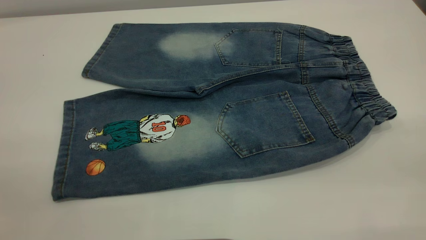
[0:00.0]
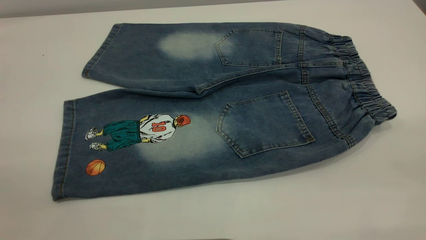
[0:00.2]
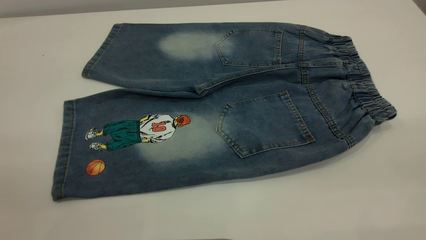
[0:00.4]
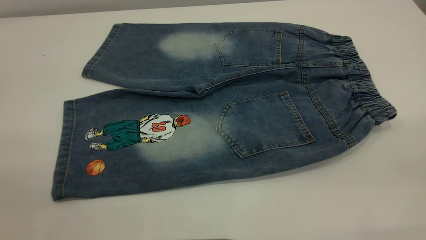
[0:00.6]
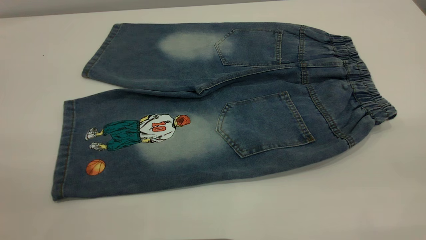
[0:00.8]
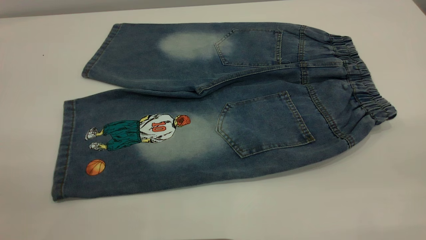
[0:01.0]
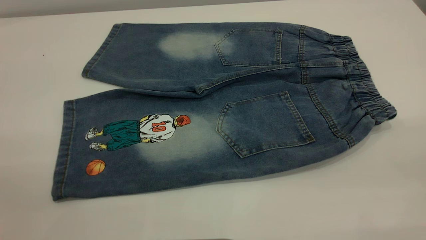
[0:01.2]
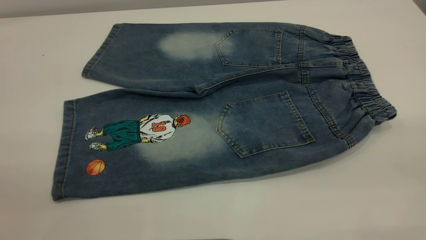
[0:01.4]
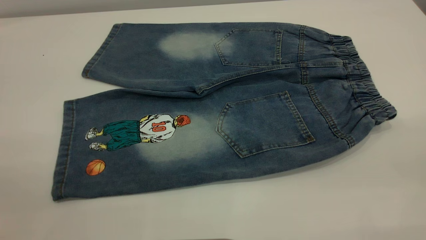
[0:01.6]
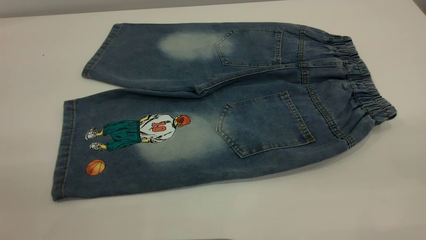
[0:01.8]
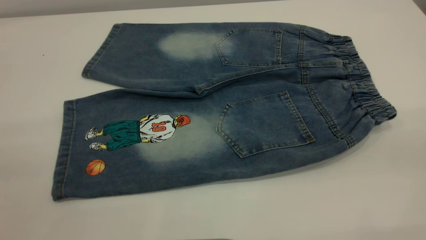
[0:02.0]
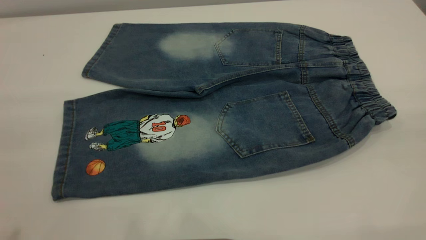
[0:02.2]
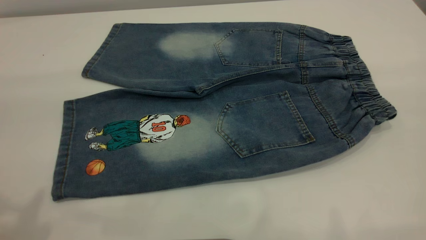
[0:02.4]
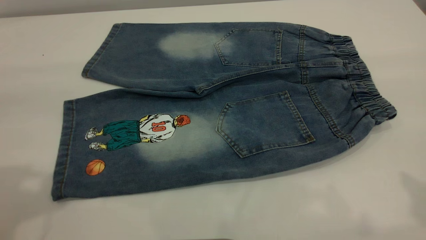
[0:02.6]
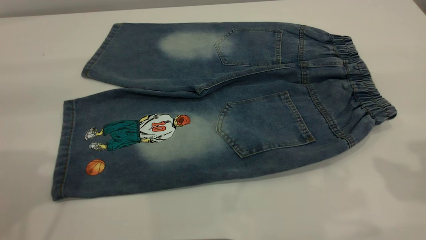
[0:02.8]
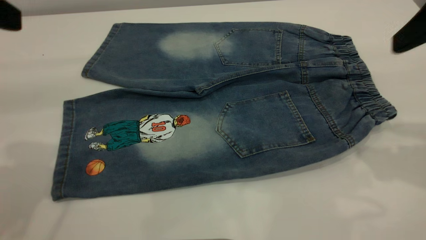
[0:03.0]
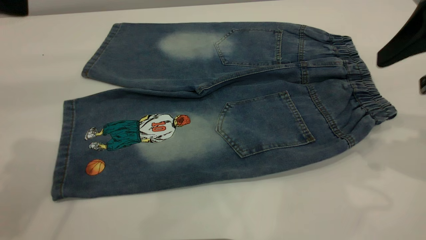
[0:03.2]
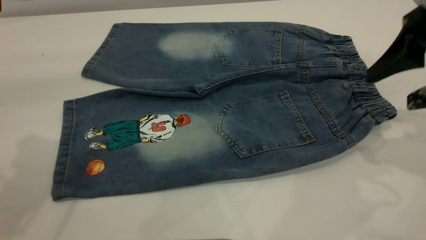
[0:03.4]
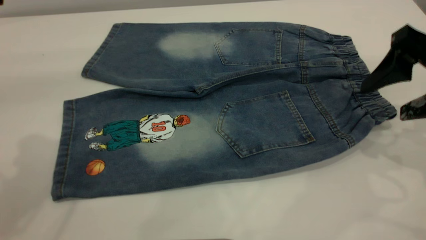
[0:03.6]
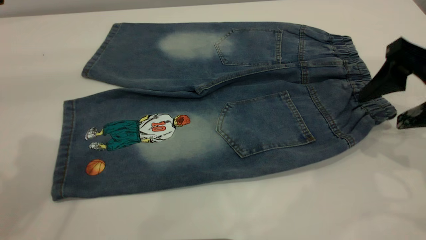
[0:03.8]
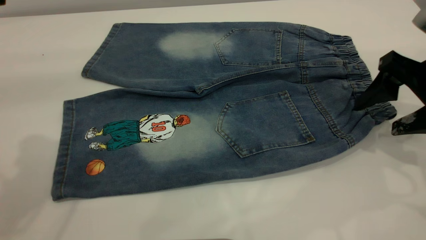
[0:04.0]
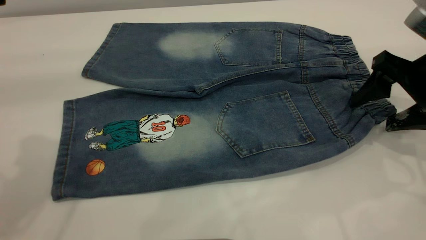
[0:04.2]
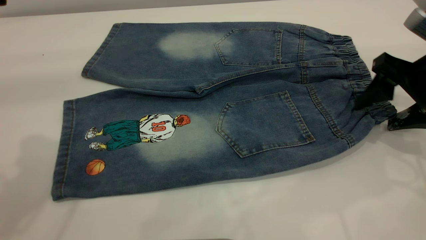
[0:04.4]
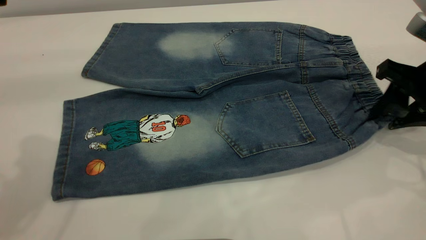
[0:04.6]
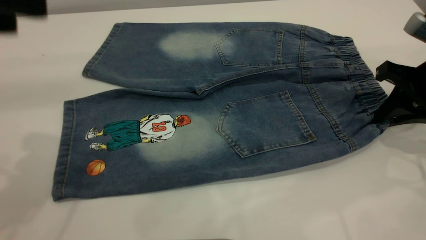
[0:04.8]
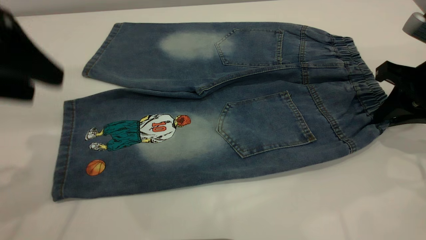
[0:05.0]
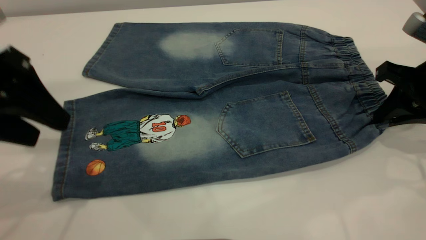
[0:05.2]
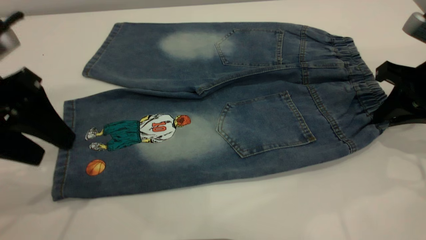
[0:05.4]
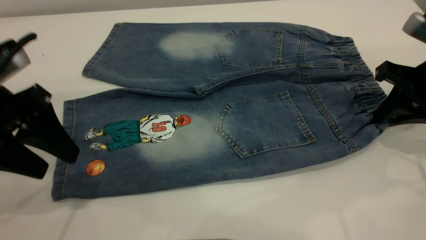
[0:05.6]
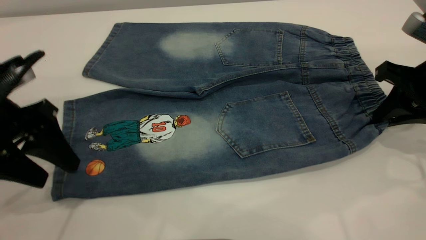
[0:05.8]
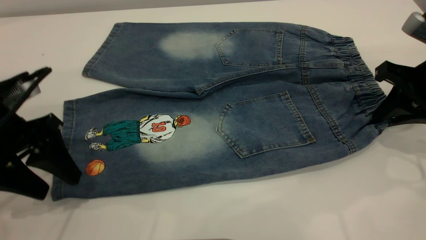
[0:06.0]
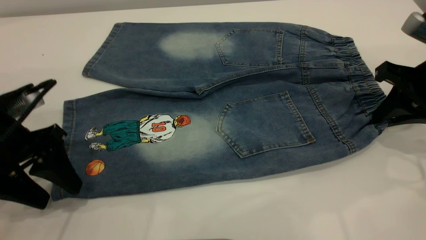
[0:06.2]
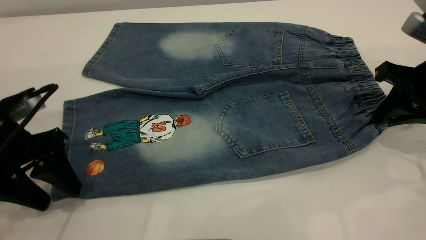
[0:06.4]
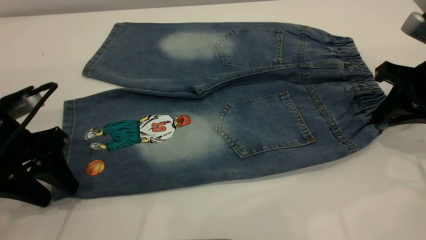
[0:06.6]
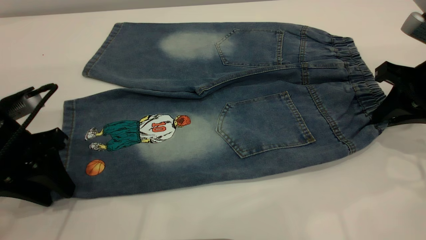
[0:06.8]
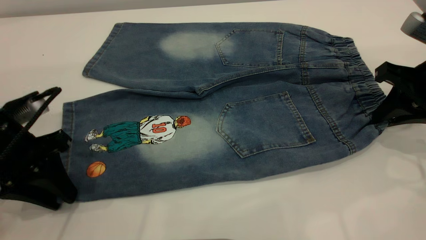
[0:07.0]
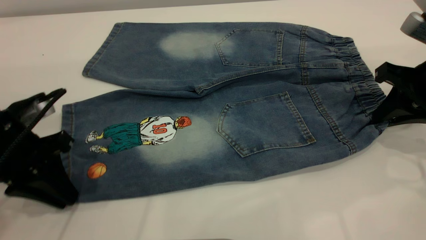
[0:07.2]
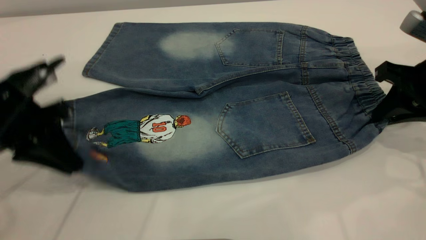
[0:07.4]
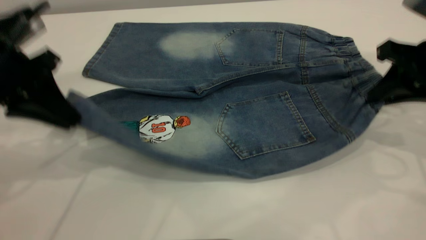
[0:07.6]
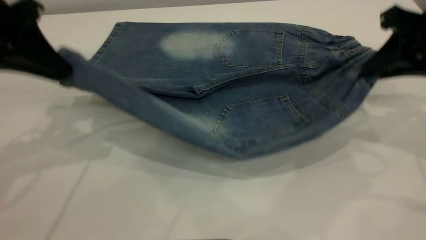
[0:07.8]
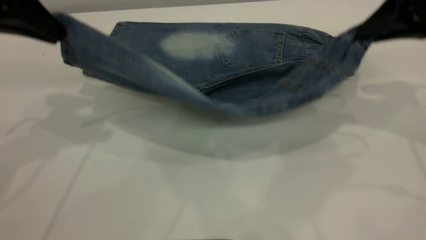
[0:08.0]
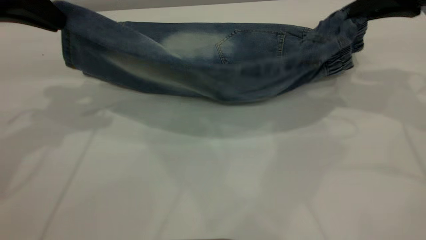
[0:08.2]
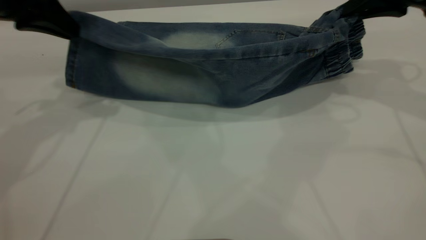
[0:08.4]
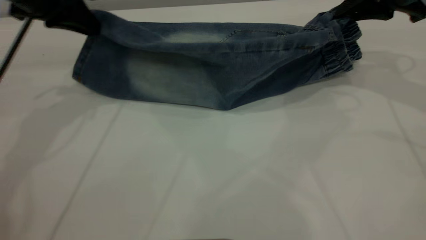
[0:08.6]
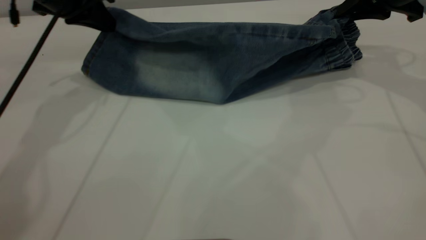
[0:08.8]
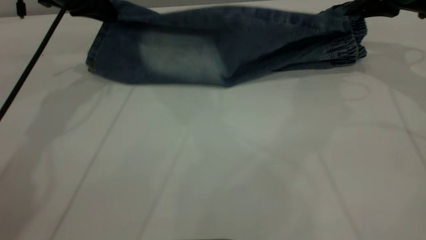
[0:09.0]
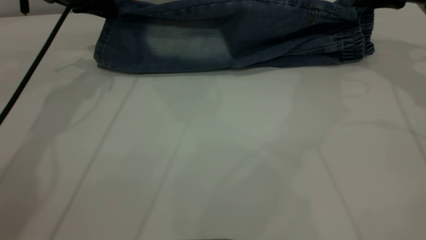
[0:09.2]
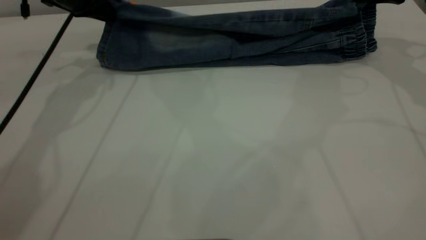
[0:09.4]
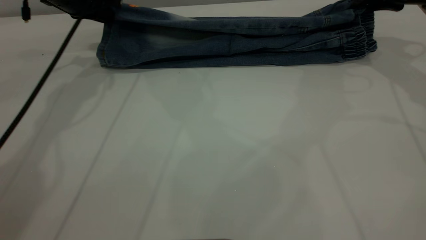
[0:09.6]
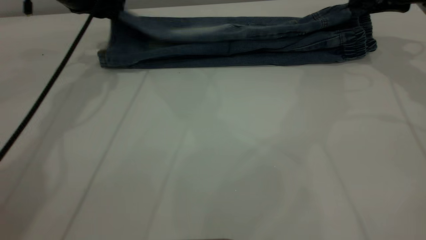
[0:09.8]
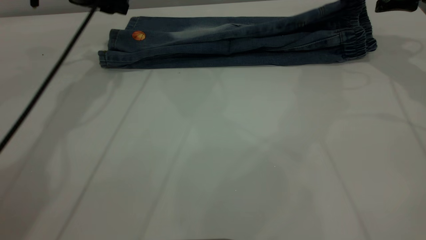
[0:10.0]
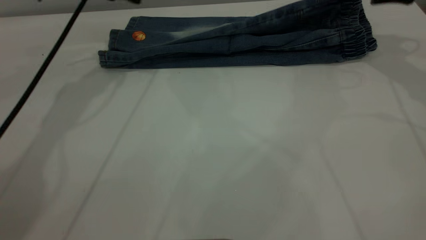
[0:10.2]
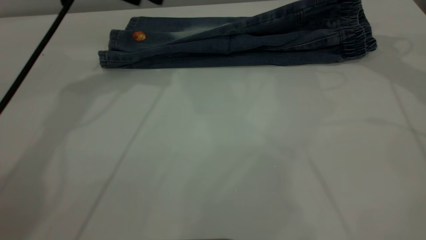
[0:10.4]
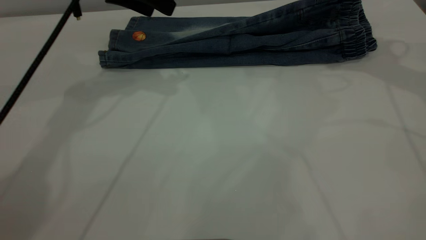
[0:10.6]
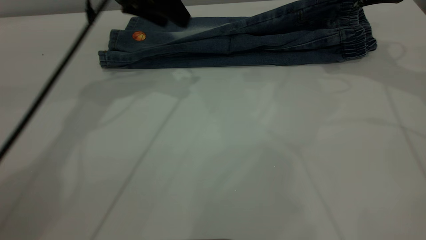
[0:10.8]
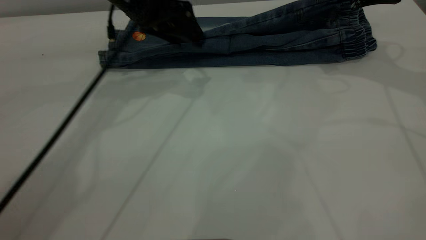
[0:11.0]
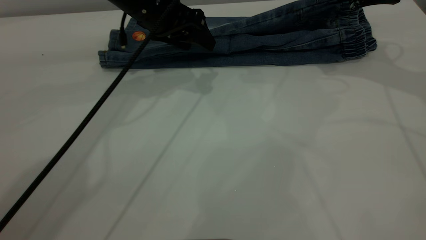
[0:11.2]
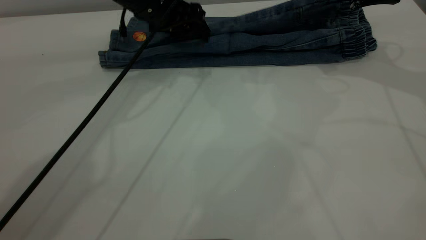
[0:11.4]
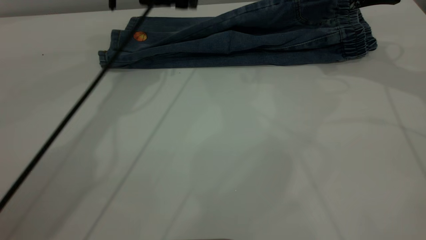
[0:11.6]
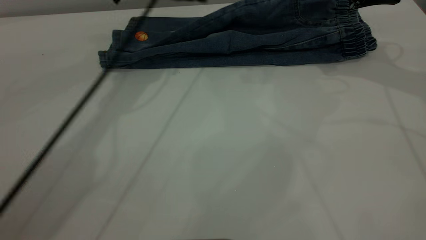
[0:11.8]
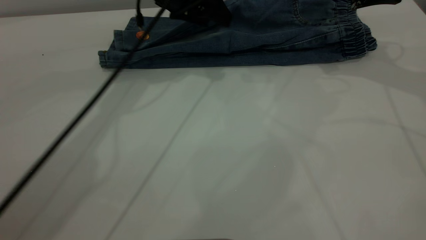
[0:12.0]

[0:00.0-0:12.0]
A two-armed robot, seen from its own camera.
Step, 0:00.0 to 0:10.2: Fold the bottom of the pants upward.
0:00.0 to 0:01.6: Both grippers stay put.
0:01.6 to 0:03.0: The right gripper is displaced forward by some 25 cm.
0:03.0 to 0:04.4: The right gripper travels downward and forward by about 15 cm.
0:04.4 to 0:06.0: The right gripper closes its fingers. The left gripper travels downward by some 15 cm.
0:06.0 to 0:07.6: The left gripper goes about 5 cm upward, and closes up.
0:07.6 to 0:09.0: The grippers both shift forward by some 15 cm.
0:09.0 to 0:10.4: The left gripper moves to the right, some 5 cm, and opens; the right gripper opens up.
0:10.4 to 0:12.0: The left gripper shifts some 10 cm to the right and downward.

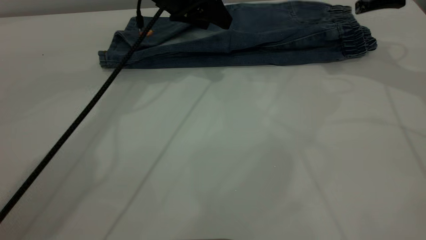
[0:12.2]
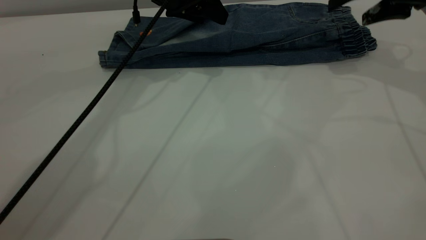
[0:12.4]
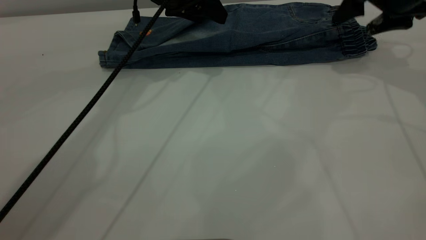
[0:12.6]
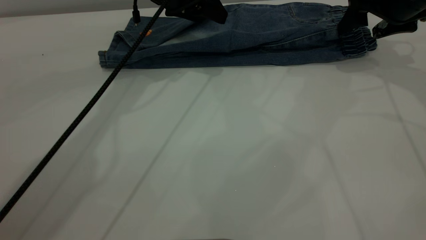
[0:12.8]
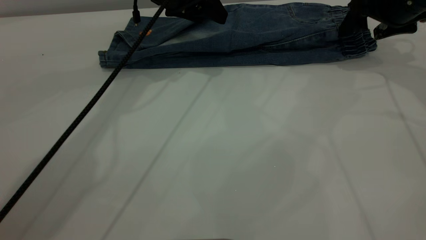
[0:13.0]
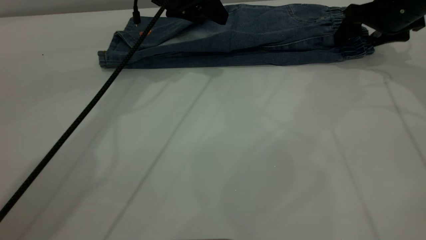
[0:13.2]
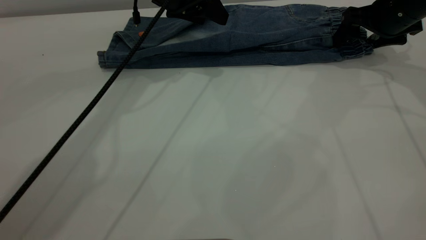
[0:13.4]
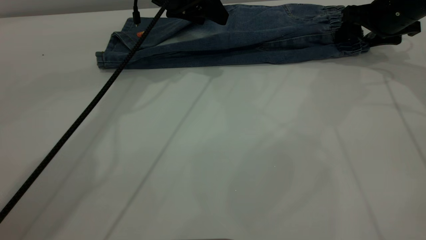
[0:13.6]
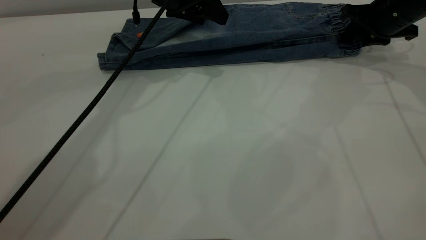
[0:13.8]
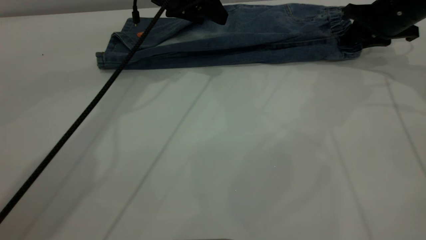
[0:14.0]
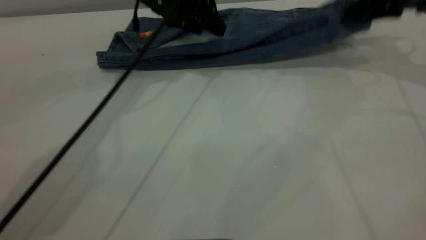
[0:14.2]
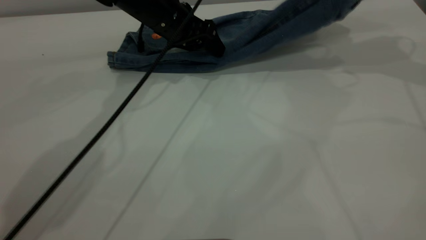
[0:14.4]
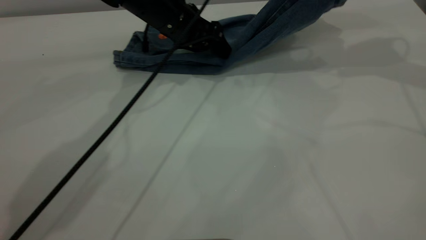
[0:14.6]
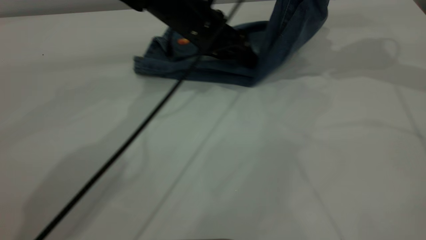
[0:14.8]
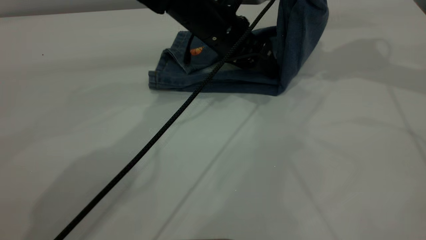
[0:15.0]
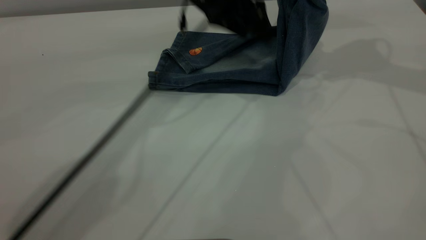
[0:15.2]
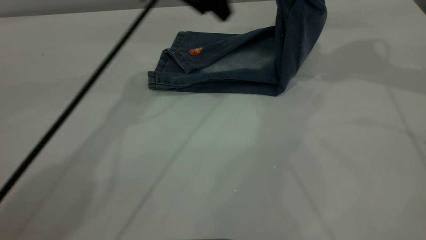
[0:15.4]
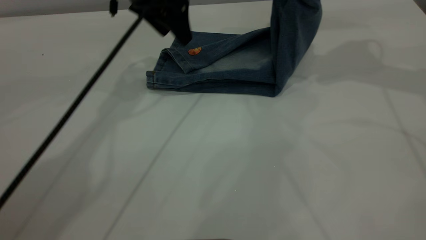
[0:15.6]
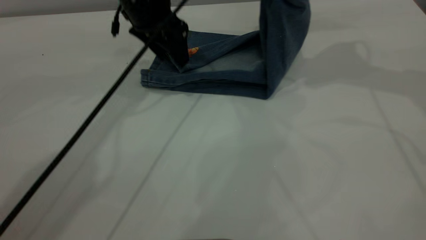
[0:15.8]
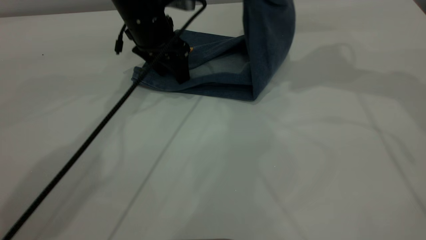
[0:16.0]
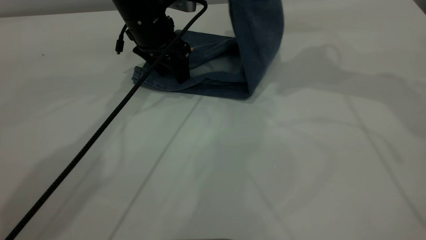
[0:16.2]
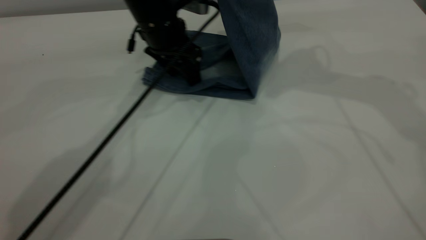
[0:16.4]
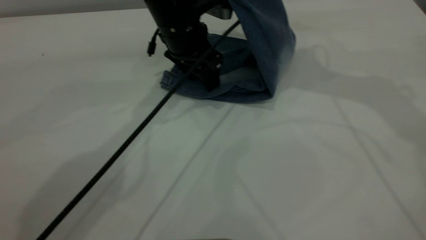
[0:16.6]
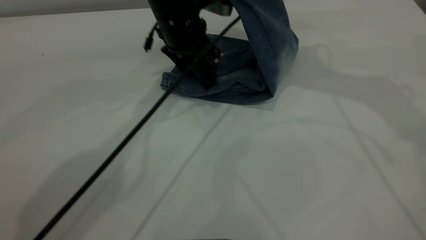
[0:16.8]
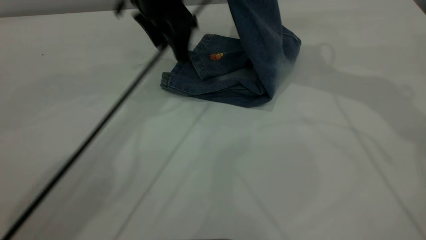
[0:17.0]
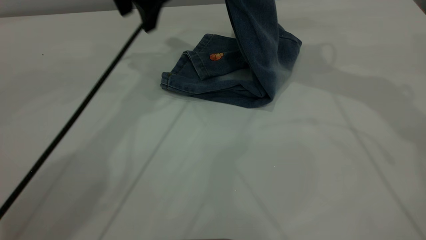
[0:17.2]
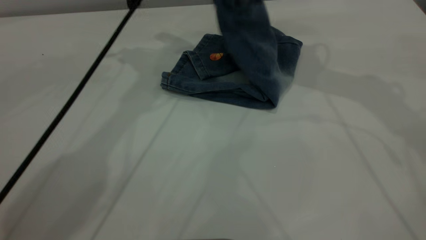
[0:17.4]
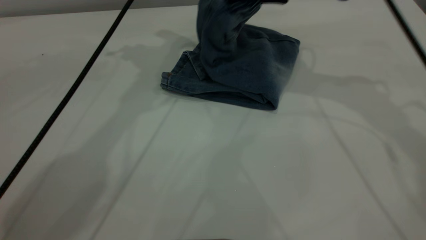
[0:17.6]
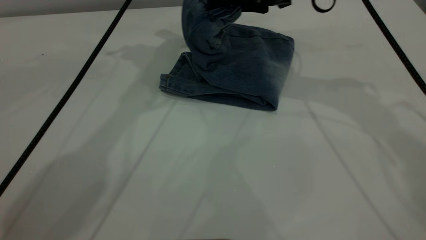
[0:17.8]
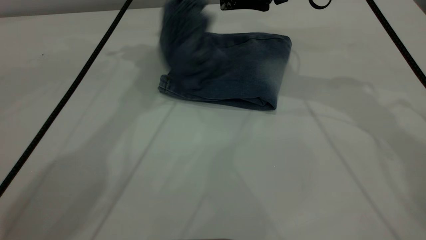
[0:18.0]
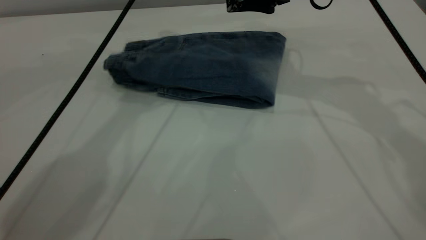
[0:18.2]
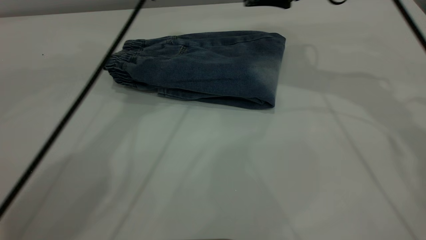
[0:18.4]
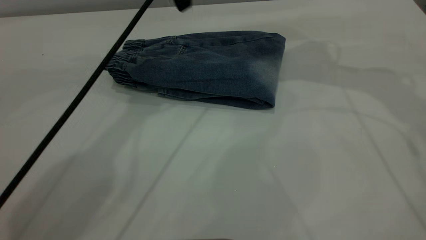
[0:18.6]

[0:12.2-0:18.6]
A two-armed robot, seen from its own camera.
Step, 0:12.2 to 0:18.2: Fold your pants from right to left.
0:12.2 to 0:13.8: The right gripper shifts some 10 cm downward, and closes up.
0:13.8 to 0:15.4: The right gripper travels upward by approximately 15 cm; the left gripper heads upward, covering roughly 5 cm.
0:15.4 to 0:17.0: The right gripper heads to the left, covering roughly 10 cm, while the left gripper moves some 10 cm downward and comes back.
0:17.0 to 0:18.6: The right gripper shifts some 5 cm downward, and opens its fingers. The left gripper heads upward, covering some 5 cm.
